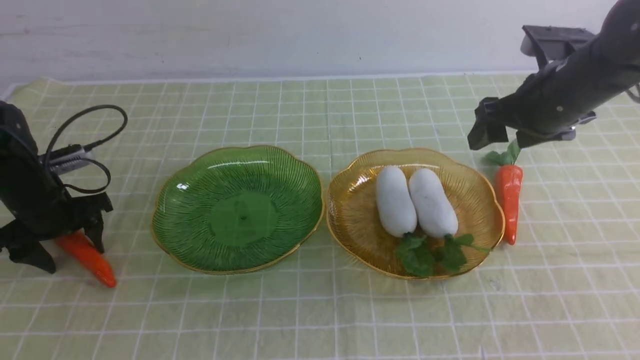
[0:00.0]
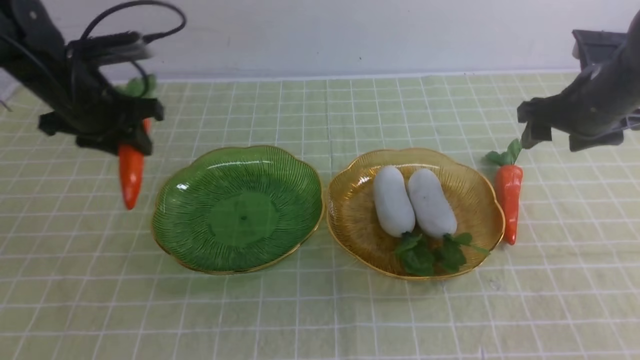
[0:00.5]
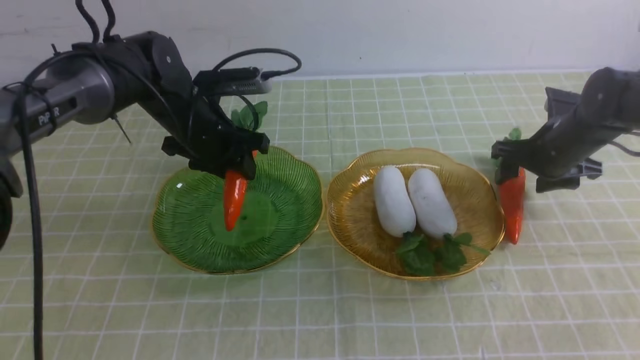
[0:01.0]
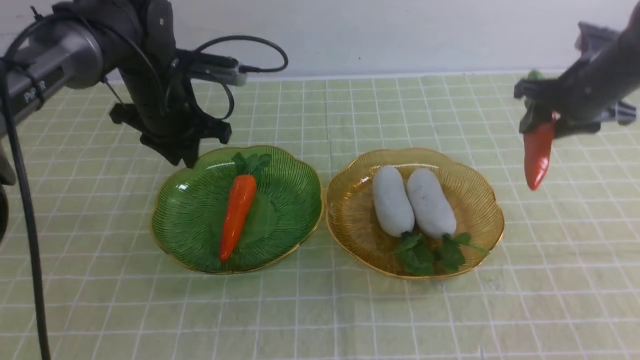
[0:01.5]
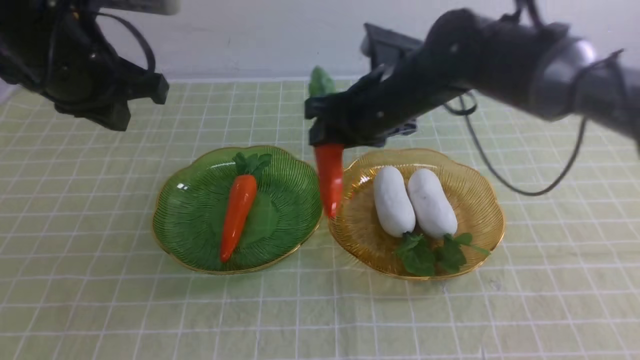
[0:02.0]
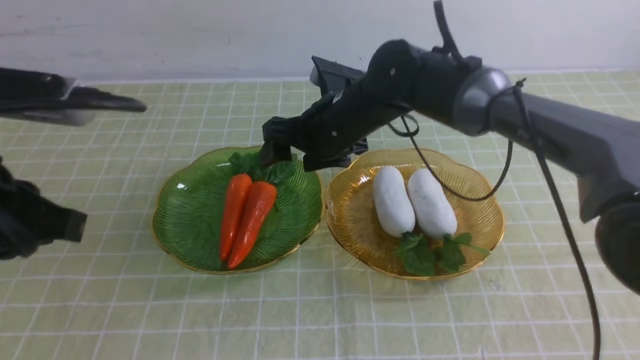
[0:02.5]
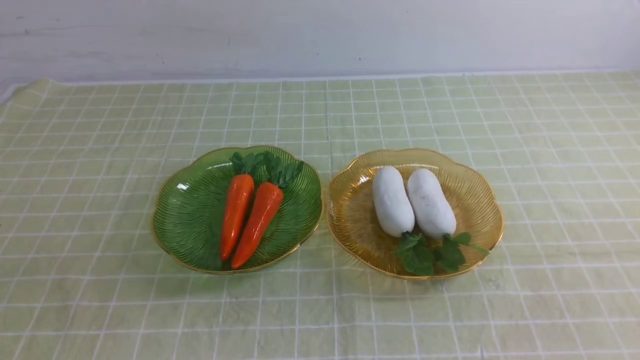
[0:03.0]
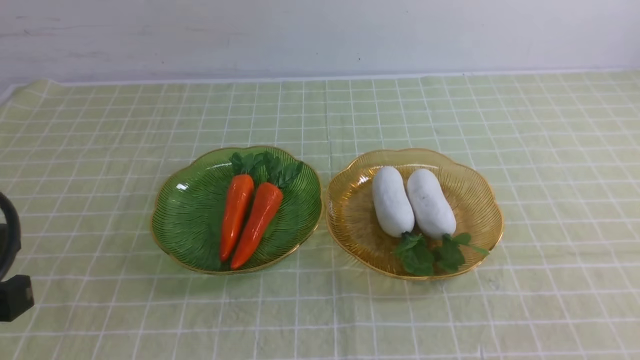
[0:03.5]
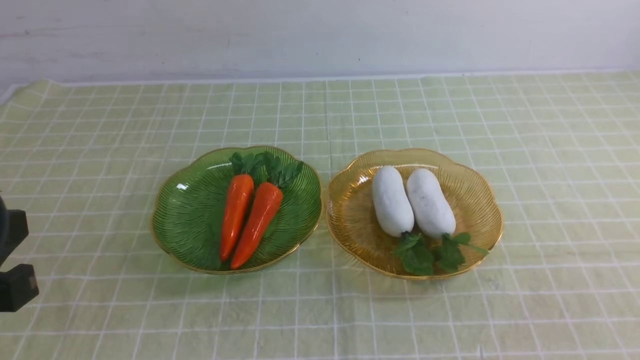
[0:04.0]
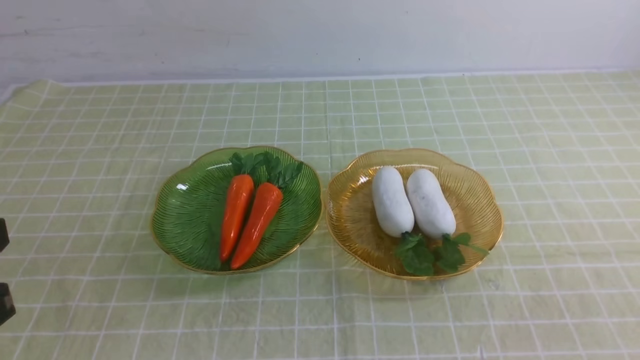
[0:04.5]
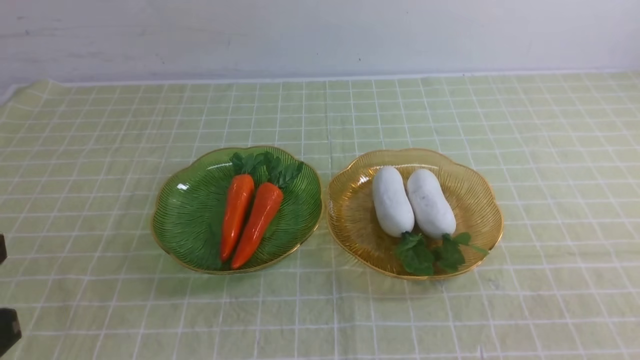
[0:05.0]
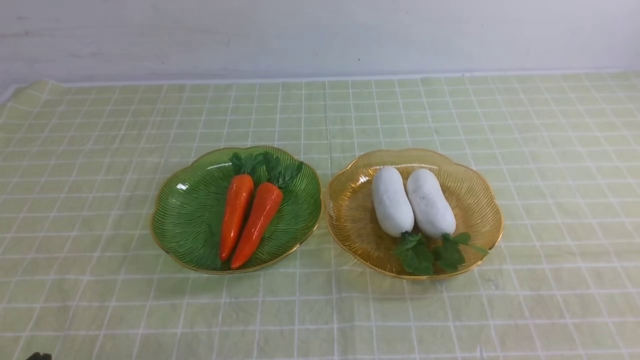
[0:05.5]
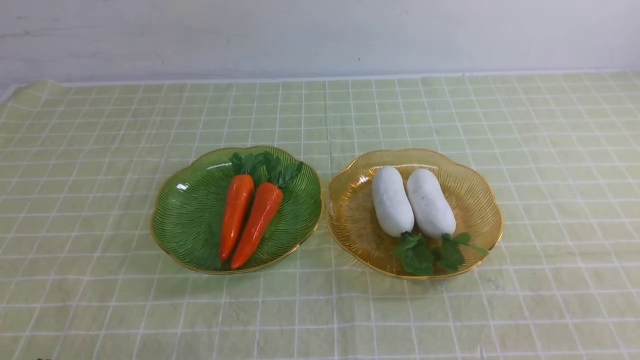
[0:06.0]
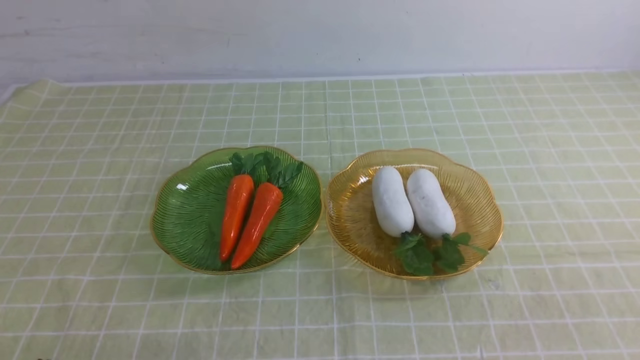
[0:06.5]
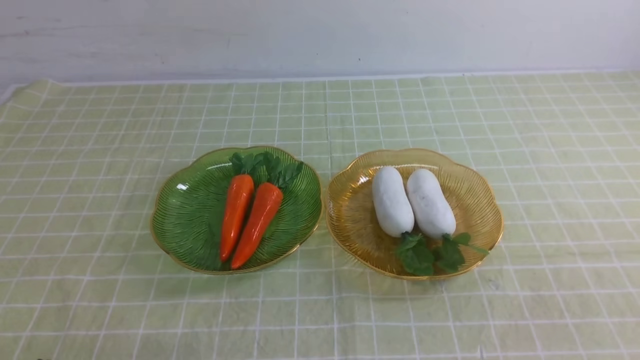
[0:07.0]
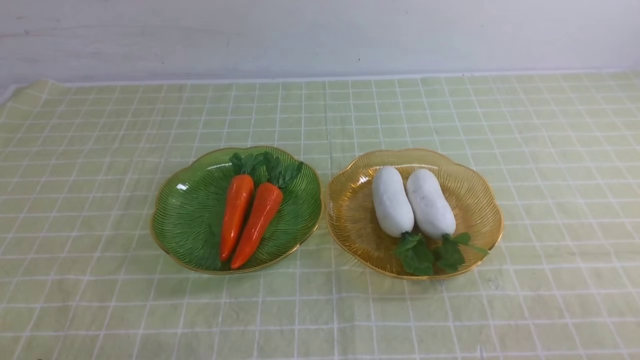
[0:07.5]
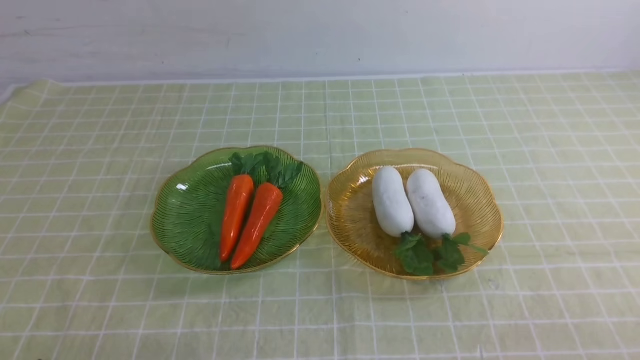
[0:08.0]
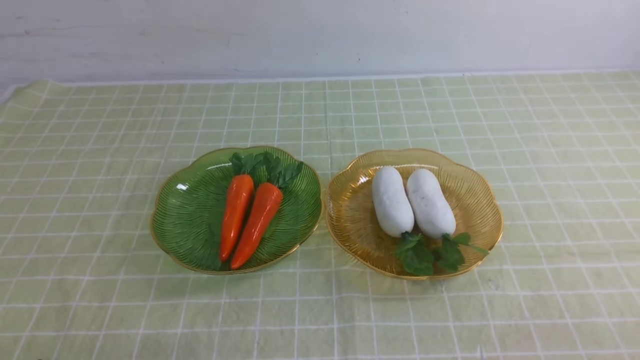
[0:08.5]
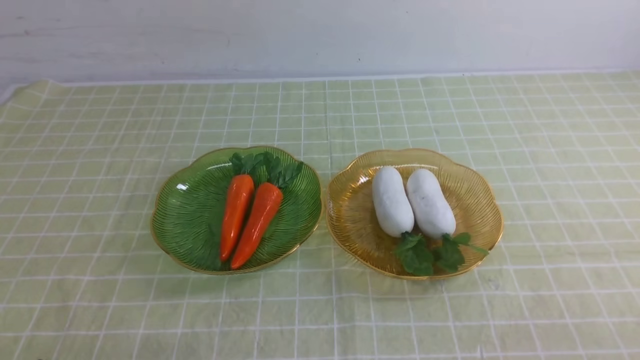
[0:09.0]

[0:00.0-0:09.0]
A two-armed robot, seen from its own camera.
Step, 0:00.0 to 0:01.0: use the left arm to grab a carrot and put it into the left plate.
Step, 0:01.5 to 0:02.5: use the right arm to grab a carrot and put it into the left plate.
0:00.0 to 0:02.0: The left gripper is displaced upward and to the right by some 25 cm, and closes up. Meanwhile the right gripper heads to the left, covering approximately 20 cm, and closes its fingers.
0:02.0 to 0:04.5: The left gripper goes approximately 25 cm backward. Meanwhile the right gripper heads backward and to the right, covering roughly 50 cm, and closes up.
